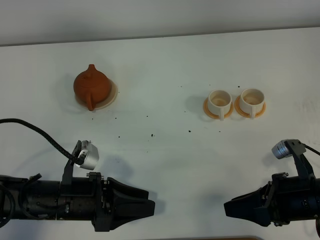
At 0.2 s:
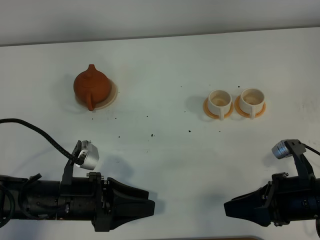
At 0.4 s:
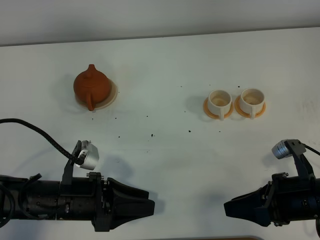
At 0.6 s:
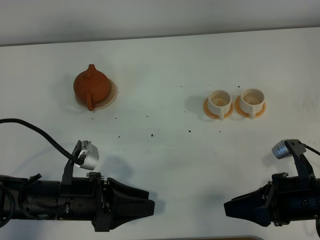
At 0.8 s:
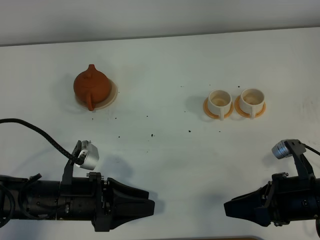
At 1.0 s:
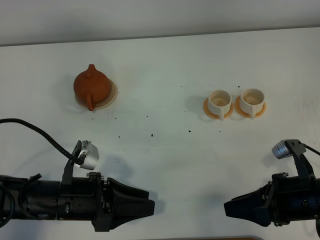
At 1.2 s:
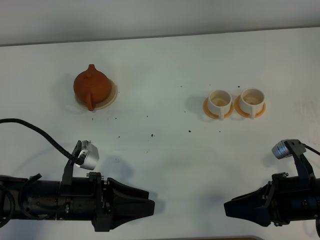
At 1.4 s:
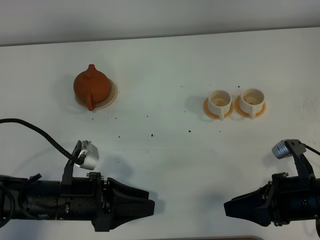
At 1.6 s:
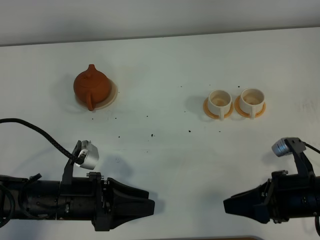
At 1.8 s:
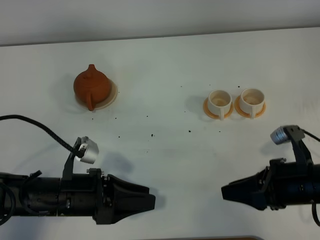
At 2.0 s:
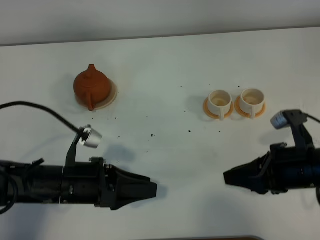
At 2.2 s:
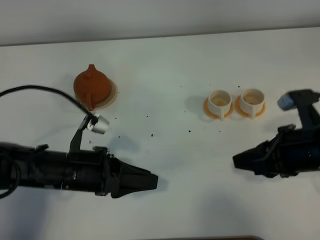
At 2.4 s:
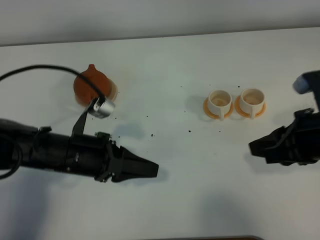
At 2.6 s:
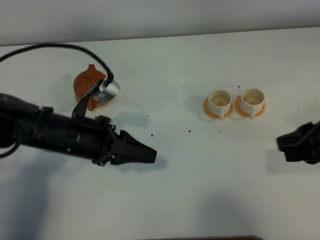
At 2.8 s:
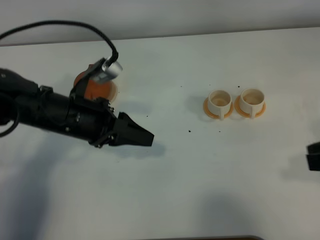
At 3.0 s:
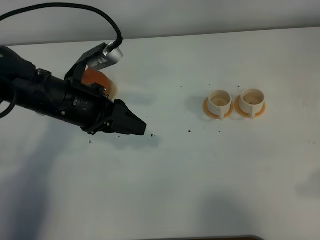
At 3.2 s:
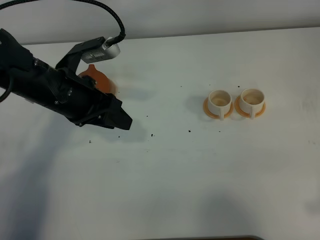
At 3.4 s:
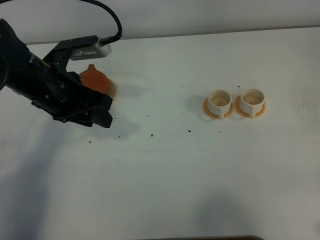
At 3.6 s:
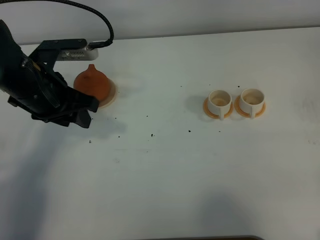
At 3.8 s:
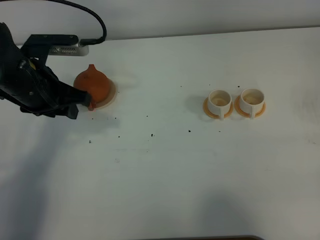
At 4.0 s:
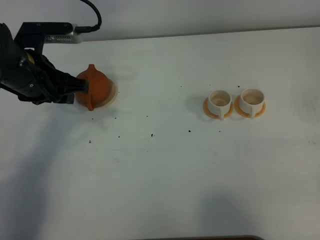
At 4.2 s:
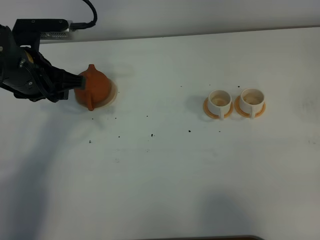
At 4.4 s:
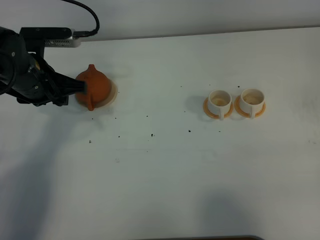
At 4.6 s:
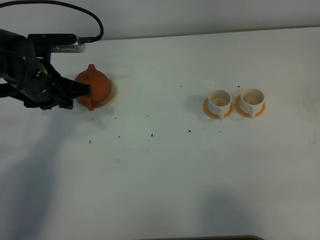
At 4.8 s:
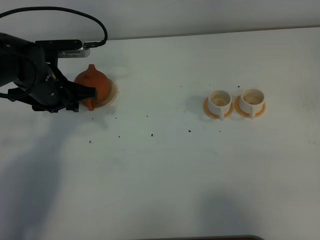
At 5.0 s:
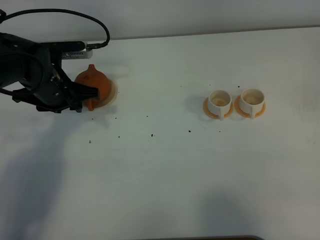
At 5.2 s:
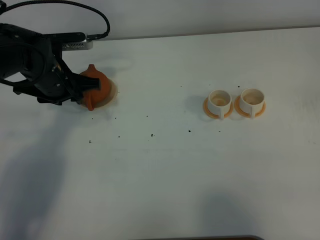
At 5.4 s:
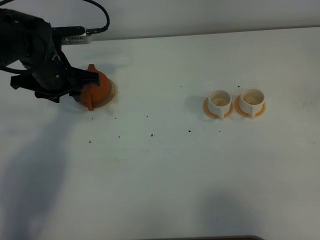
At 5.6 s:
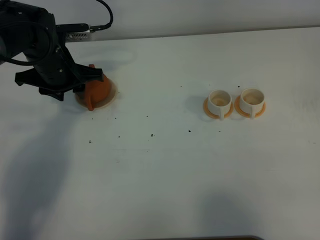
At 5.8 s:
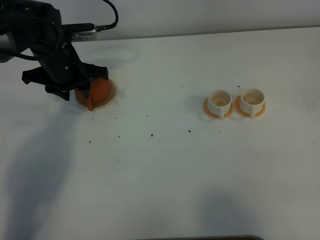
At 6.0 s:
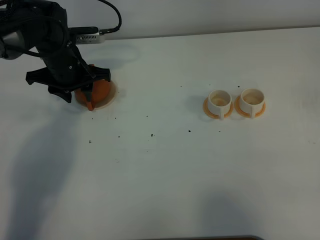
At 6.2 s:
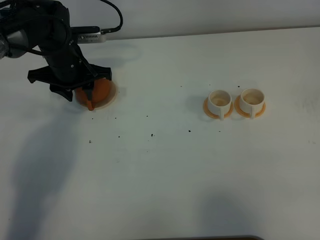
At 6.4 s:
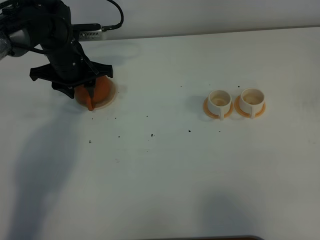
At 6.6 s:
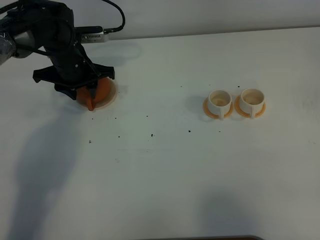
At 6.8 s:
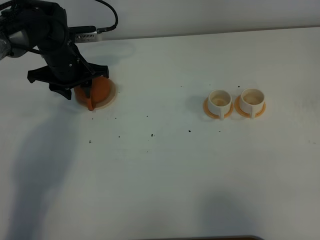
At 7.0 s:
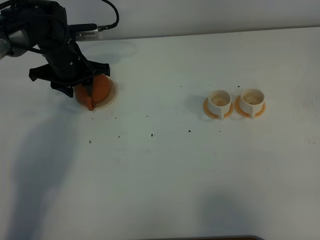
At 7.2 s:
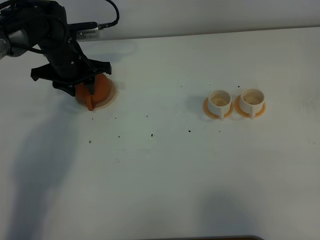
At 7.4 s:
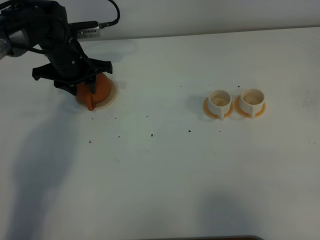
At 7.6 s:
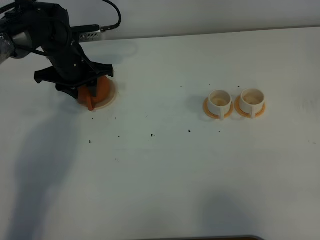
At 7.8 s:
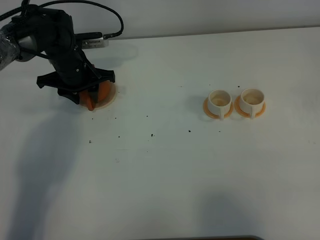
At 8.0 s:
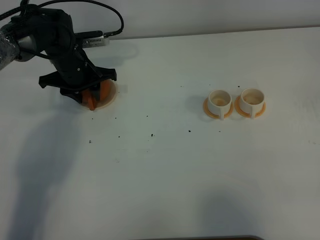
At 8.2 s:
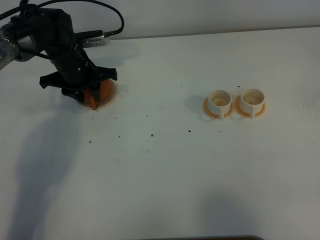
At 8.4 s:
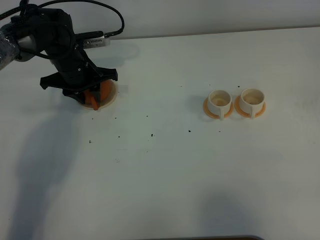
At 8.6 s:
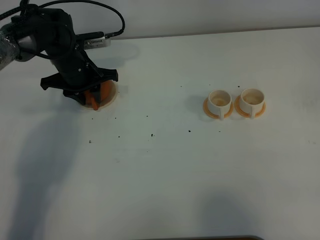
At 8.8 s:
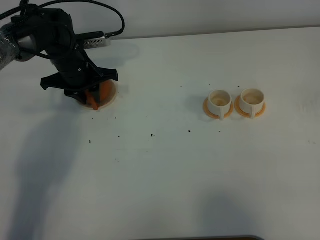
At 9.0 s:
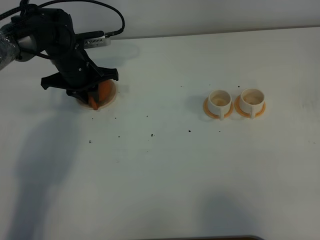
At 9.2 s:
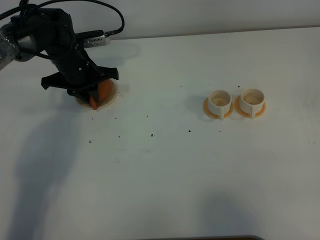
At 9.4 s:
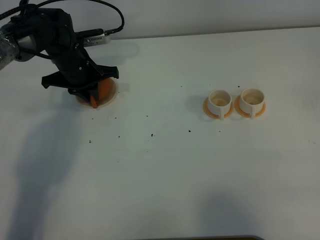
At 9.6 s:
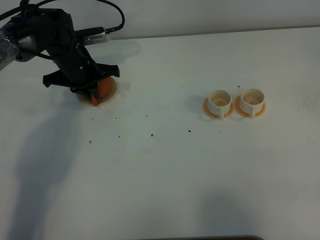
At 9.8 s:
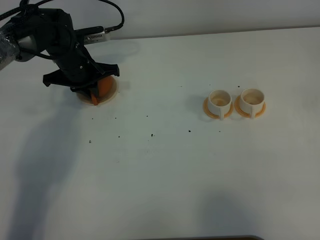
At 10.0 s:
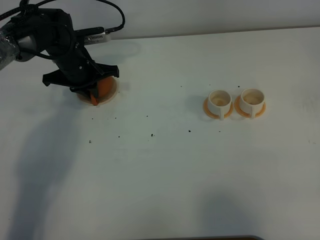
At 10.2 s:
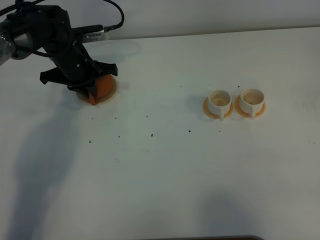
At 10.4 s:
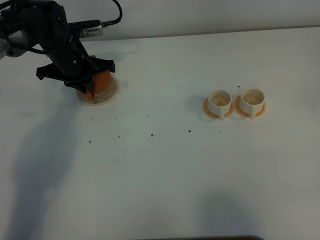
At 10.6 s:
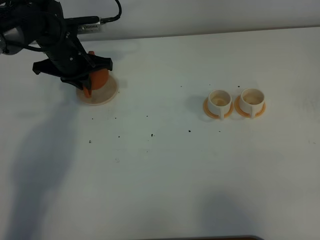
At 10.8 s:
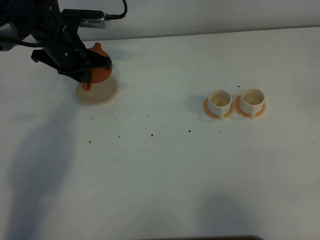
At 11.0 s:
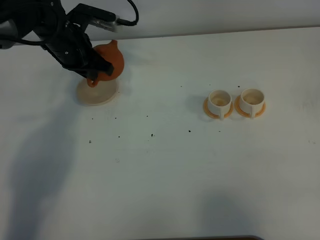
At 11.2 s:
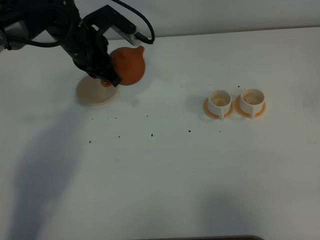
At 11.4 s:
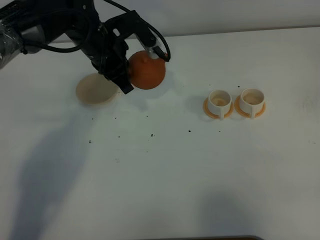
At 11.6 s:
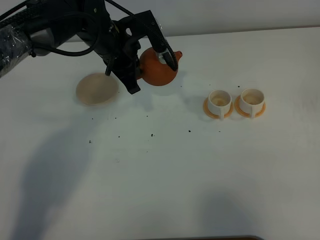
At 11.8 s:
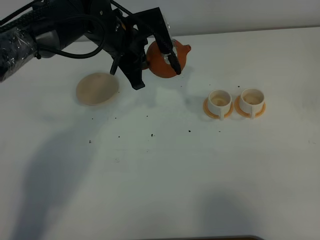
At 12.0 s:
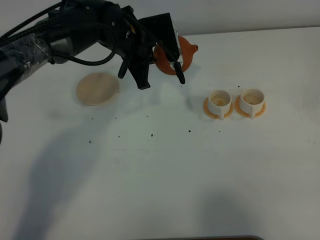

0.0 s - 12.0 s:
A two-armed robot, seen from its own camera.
Task of the whole recording: grasp the brown teapot and pour the tea into the two white teacups one by one, put the brown teapot back in its original place.
Step, 0.0 s - 11.0 s: Pick up the teapot with the left gripper.
0.0 s - 1.6 s: Neither gripper changes place.
1.6 s - 3.0 s: The left gripper travels forward and upward by roughly 15 cm. Meanwhile the right gripper moves upward and to the right, approximately 15 cm, and closes up.
3.0 s - 4.4 s: The right gripper heads backward, covering some 10 cm, while the left gripper shifts approximately 10 cm to the left and forward.
4.4 s - 6.0 s: The left gripper travels forward by about 10 cm.
6.0 s - 7.6 s: The grippers make only small movements.
7.6 s - 9.0 s: The left gripper closes its fingers.
9.0 s - 10.4 s: The grippers stay close to where they were, moving slightly.
10.4 s - 12.0 s: The left gripper is displaced to the right by roughly 15 cm.

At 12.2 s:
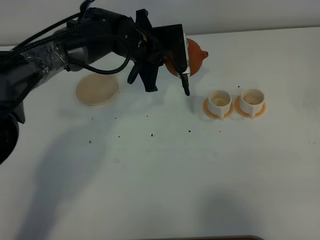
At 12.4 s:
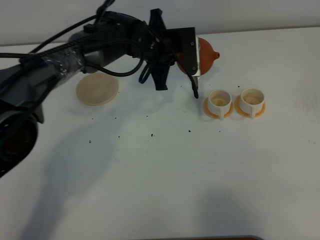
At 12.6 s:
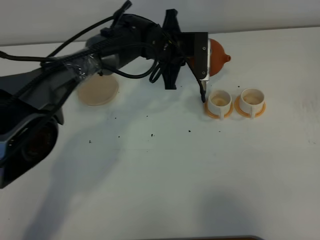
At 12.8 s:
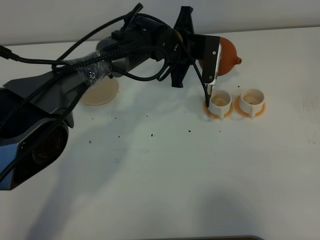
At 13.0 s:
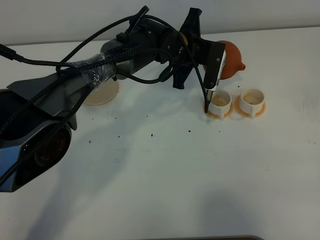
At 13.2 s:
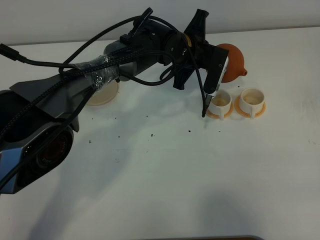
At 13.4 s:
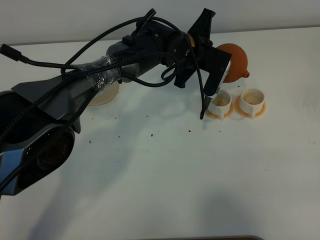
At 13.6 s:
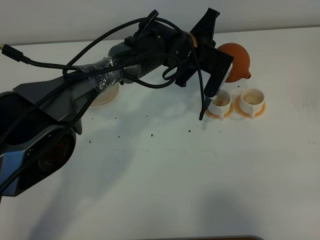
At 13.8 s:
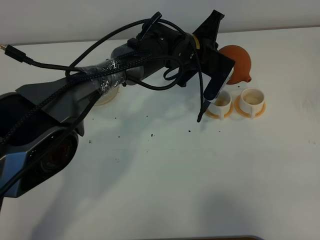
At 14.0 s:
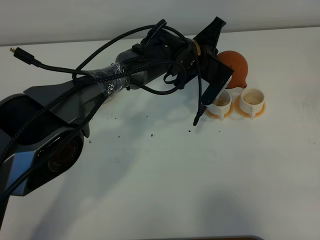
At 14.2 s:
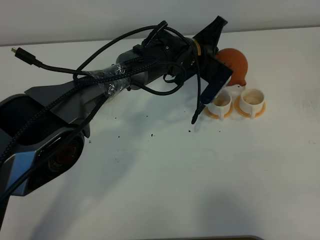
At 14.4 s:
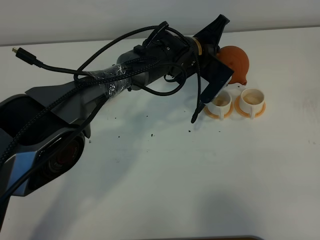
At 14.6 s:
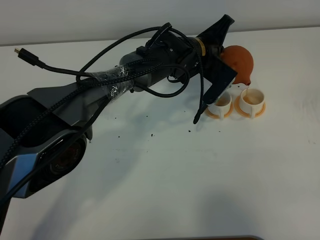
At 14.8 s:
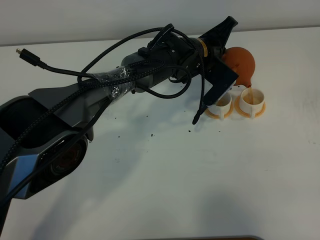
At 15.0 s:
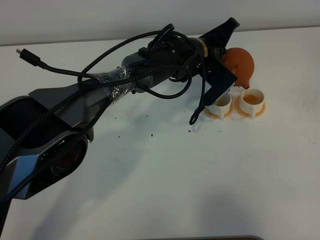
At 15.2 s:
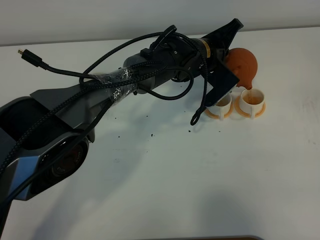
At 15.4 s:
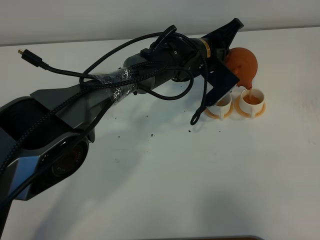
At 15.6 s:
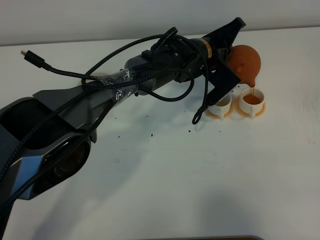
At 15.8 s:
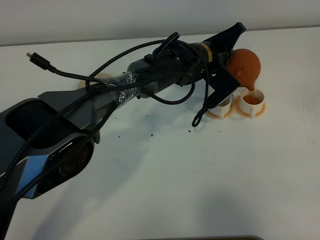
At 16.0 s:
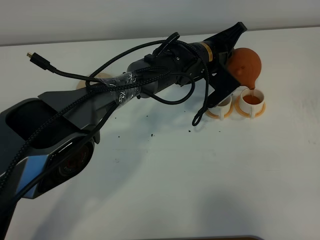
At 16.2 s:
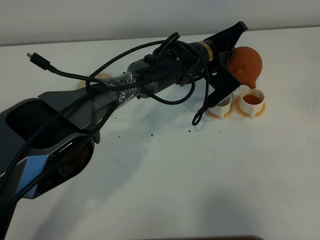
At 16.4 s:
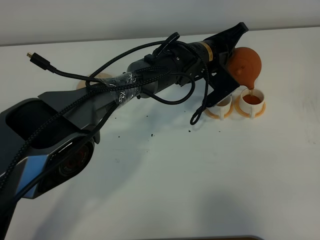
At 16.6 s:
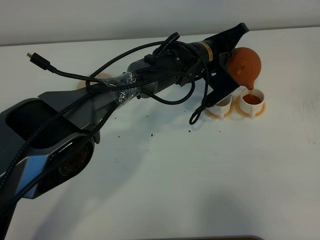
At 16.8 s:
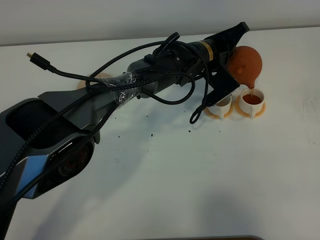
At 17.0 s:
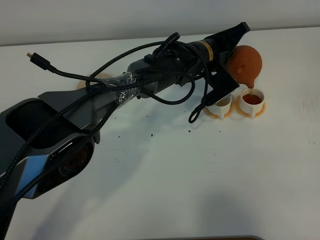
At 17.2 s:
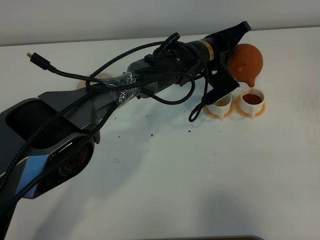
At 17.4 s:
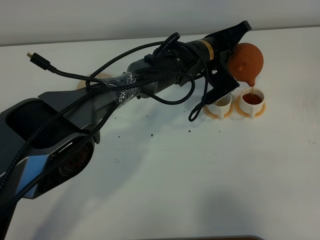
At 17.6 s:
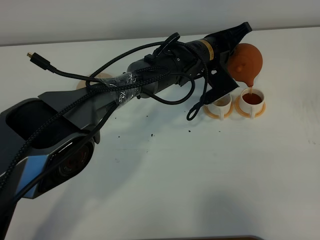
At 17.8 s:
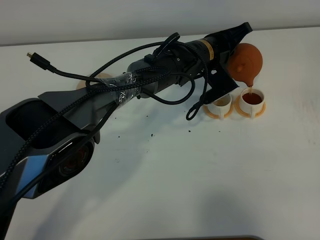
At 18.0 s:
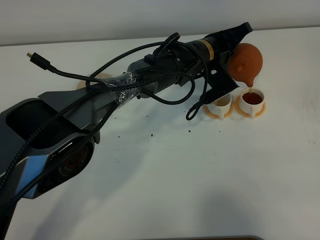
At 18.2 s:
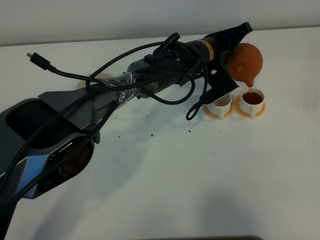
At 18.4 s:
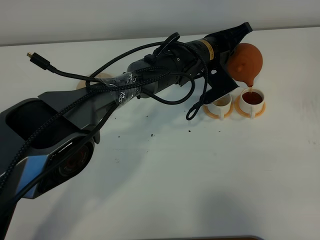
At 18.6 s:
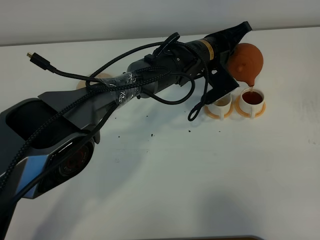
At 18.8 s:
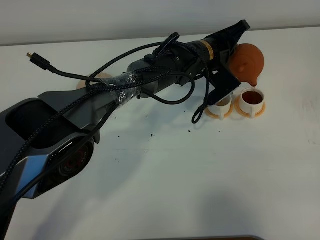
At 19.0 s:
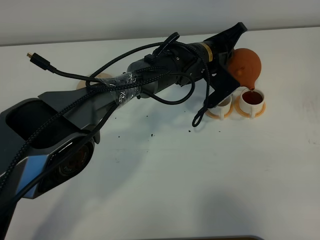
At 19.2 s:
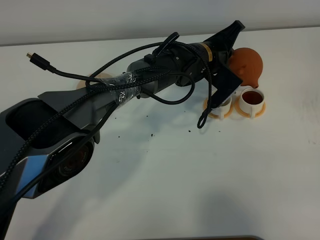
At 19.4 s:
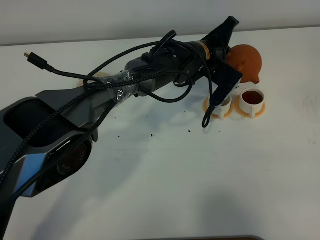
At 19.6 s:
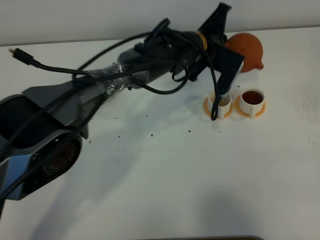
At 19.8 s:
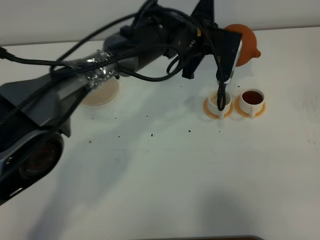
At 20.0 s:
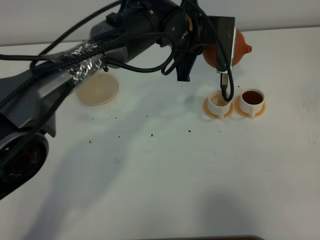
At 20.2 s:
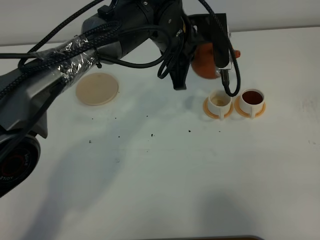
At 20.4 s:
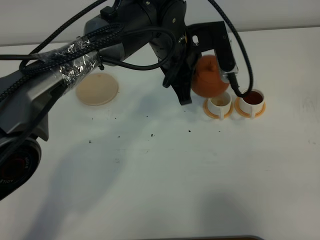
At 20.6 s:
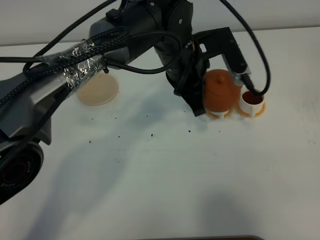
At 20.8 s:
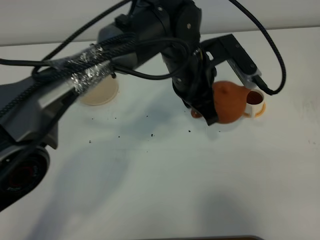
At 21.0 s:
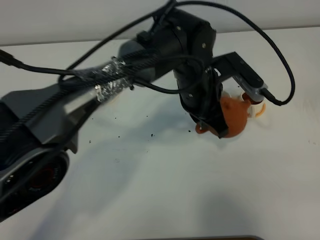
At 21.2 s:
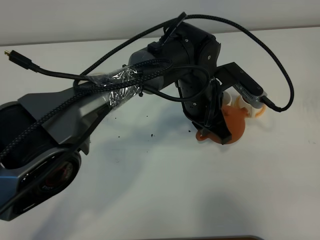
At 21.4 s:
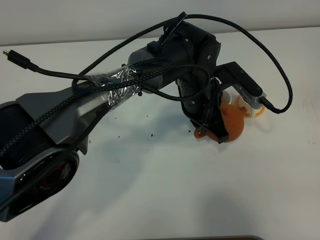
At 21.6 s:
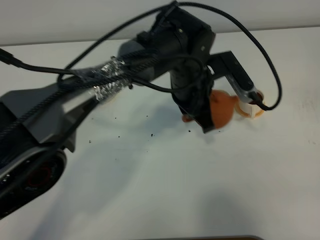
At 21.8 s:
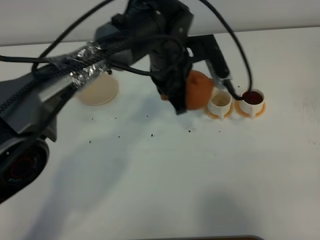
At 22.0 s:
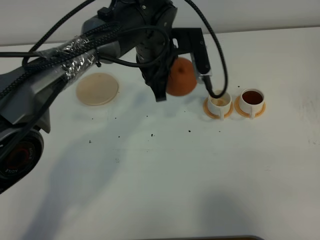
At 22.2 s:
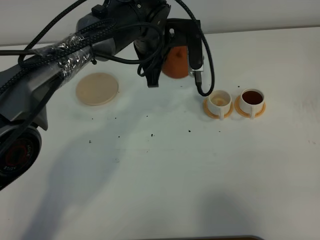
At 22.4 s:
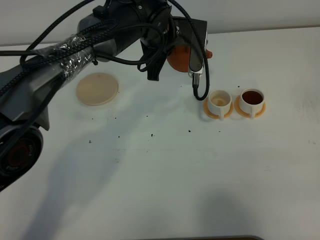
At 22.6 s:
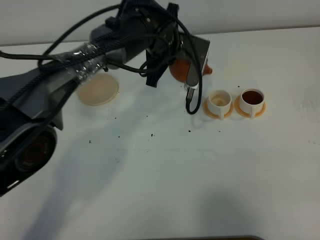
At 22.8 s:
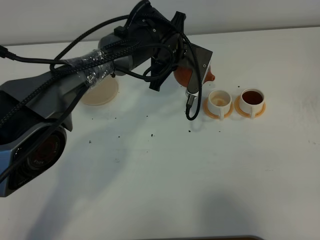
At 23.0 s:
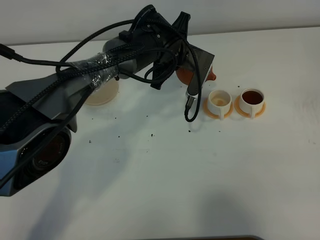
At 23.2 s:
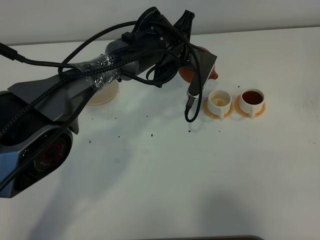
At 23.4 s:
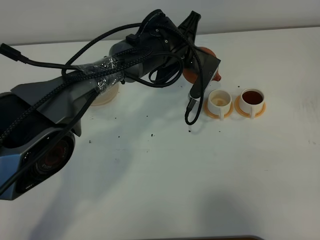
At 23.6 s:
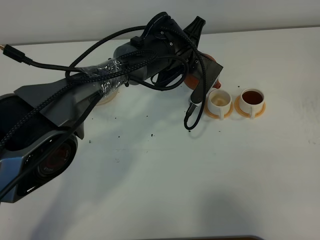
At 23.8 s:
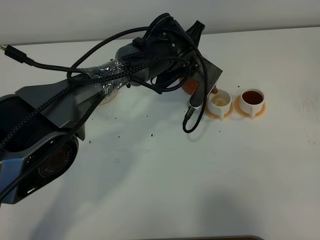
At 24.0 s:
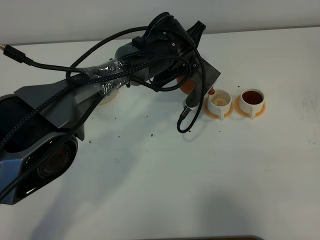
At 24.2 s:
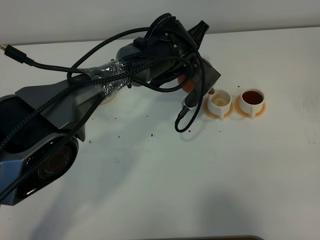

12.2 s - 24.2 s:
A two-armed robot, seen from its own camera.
Task of the whole recording: grasp the brown teapot and pour the tea into the two white teacups one by one, put the brown teapot back in its original place.
Step, 12.2 s - 20.2 s: Pour tea into the teacup with the left gripper.
12.2 s - 13.8 s: The left gripper goes about 10 cm to the right.
13.8 s - 15.2 s: The grippers move only a little.
15.2 s - 18.2 s: The grippers move only a little.
18.2 s - 19.8 s: The left gripper goes some 5 cm upward.
19.8 s - 21.2 s: The left gripper is displaced backward and downward by some 10 cm.
21.2 s - 22.6 s: The left gripper moves forward and to the left, some 10 cm.
